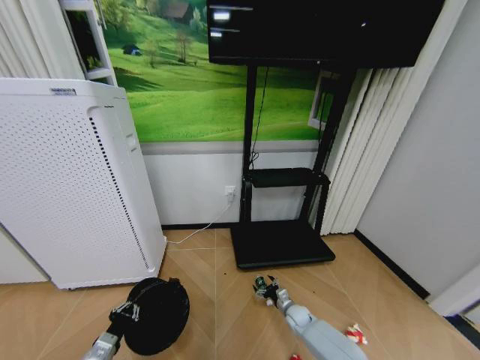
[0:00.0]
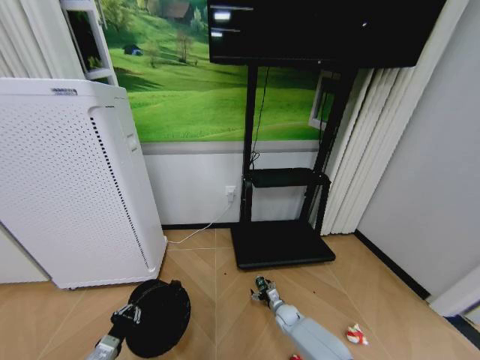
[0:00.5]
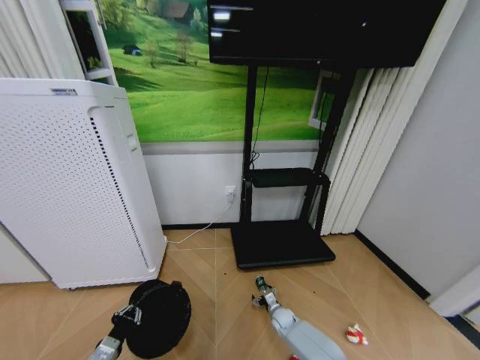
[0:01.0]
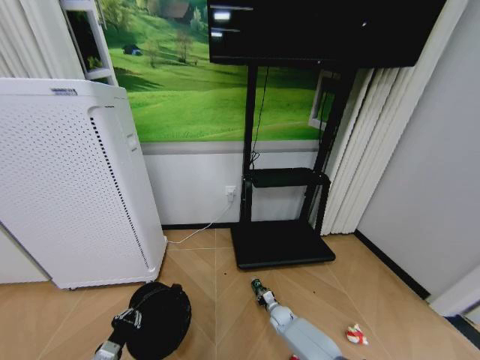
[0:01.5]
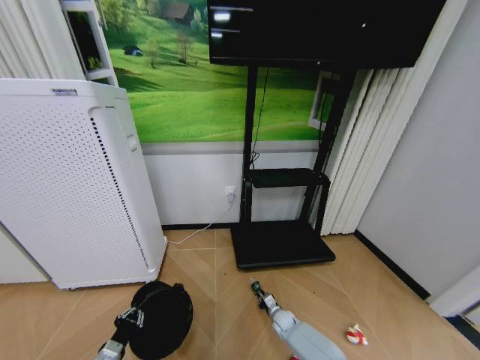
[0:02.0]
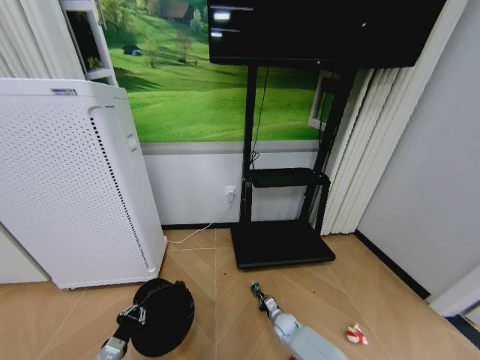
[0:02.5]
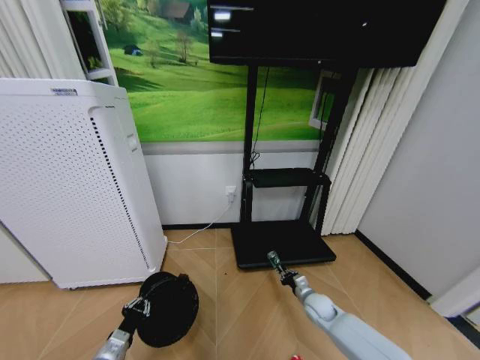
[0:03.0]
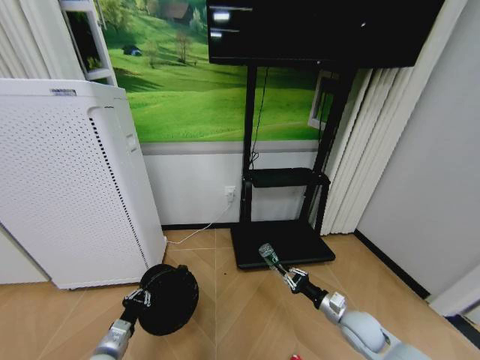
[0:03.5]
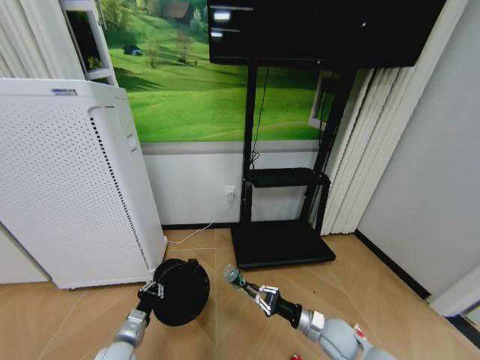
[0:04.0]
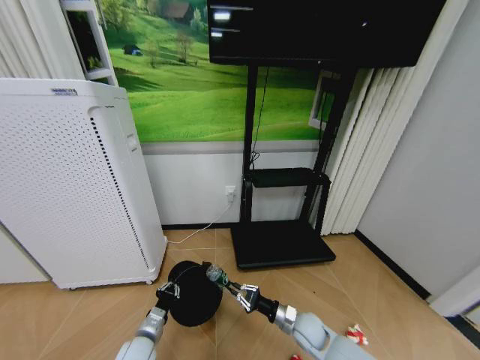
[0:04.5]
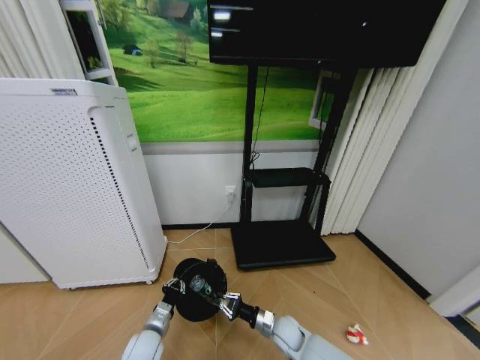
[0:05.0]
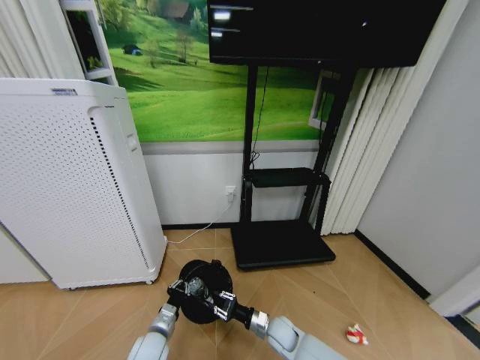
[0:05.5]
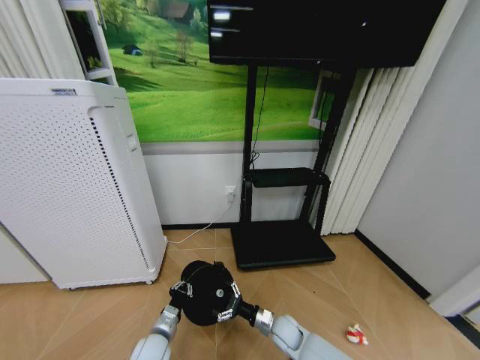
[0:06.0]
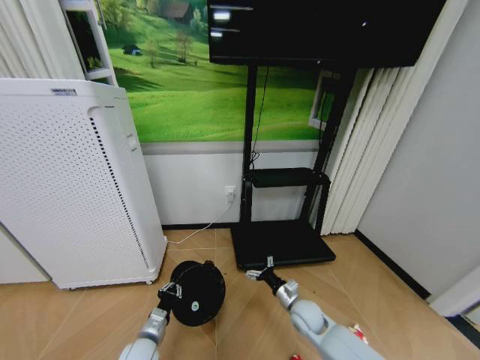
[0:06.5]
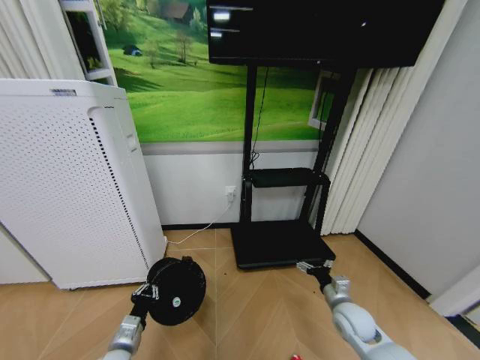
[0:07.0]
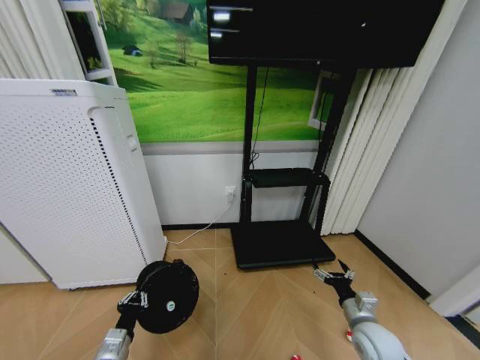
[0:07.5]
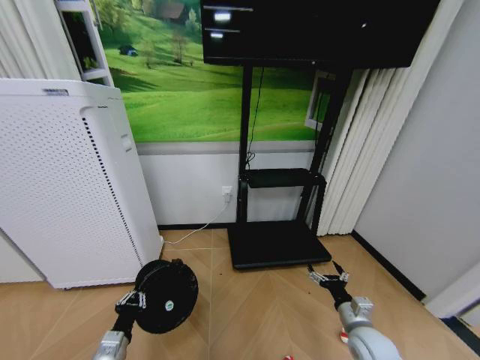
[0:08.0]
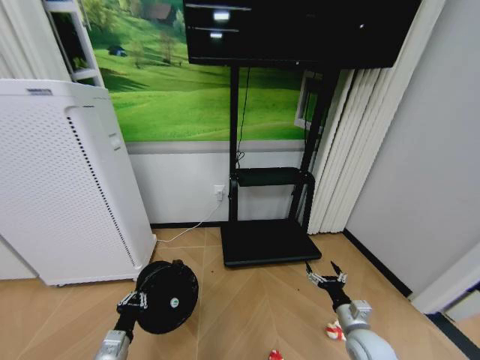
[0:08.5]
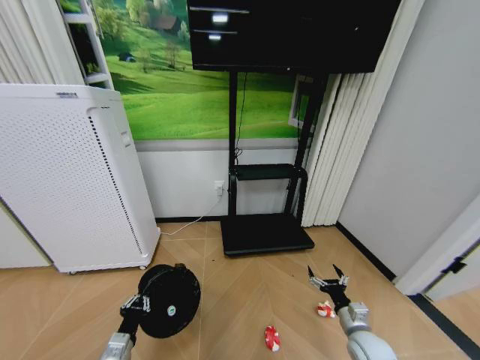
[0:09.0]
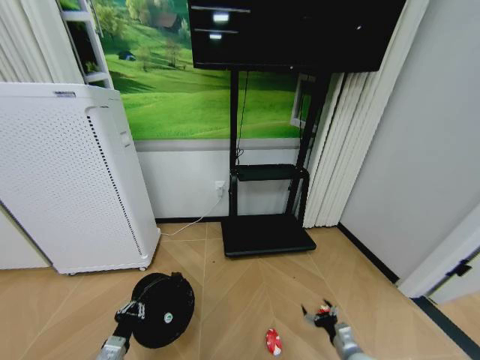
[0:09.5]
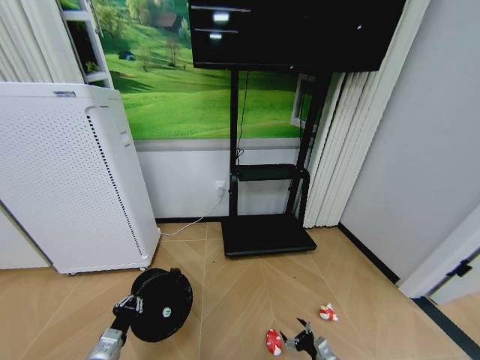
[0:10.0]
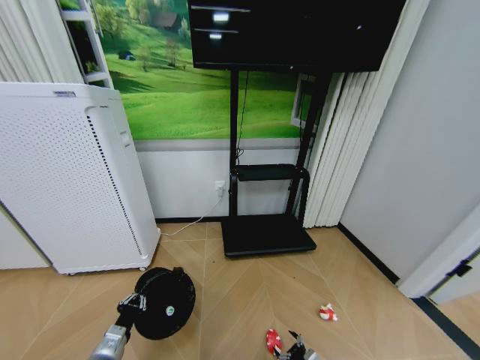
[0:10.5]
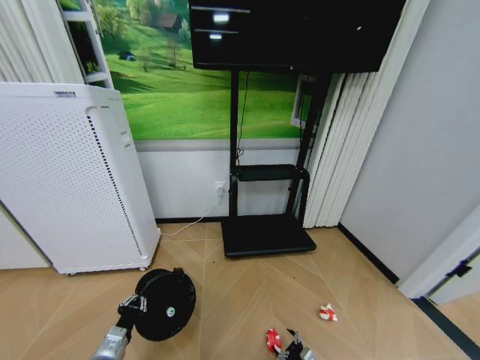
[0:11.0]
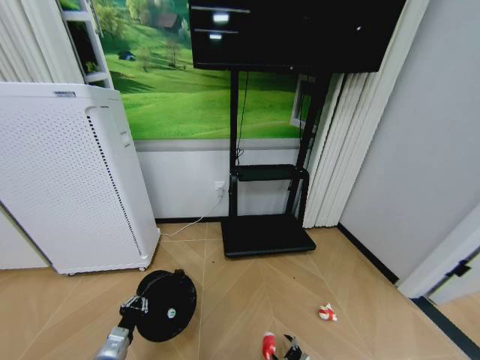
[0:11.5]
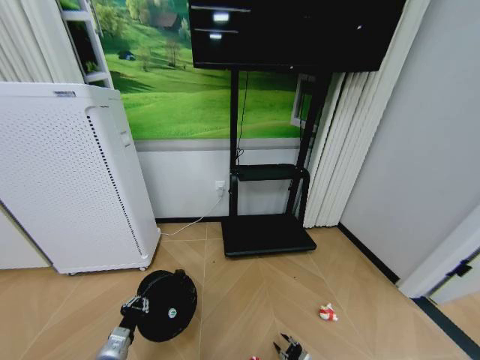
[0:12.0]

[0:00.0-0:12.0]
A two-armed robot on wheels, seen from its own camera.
Task of the whole recording: Pick up the trash bin and place the garbage on the floor into it.
0:00.0 to 0:02.0: The right gripper is displaced to the left by some 5 cm, and closes.
0:02.0 to 0:04.0: The left gripper travels forward by roughly 5 cm, while the right gripper travels upward, backward and to the right by some 25 cm.
0:04.0 to 0:06.0: The left gripper goes about 10 cm to the right. Meanwhile the right gripper goes some 15 cm to the left and downward, and opens up.
0:06.0 to 0:08.0: The right gripper is displaced to the right and upward by about 20 cm; the left gripper moves to the left, backward and upward, approximately 15 cm.
0:08.0 to 0:10.0: The right gripper travels downward by approximately 15 cm.
0:10.0 to 0:12.0: The right gripper heads downward, covering approximately 10 cm, and closes its fingers.

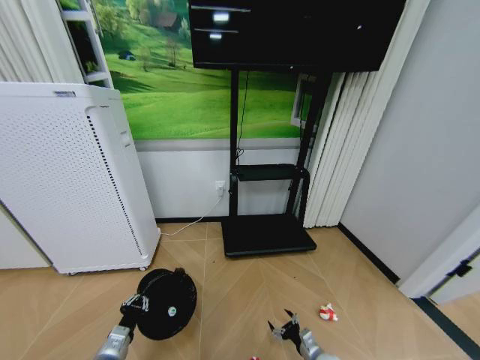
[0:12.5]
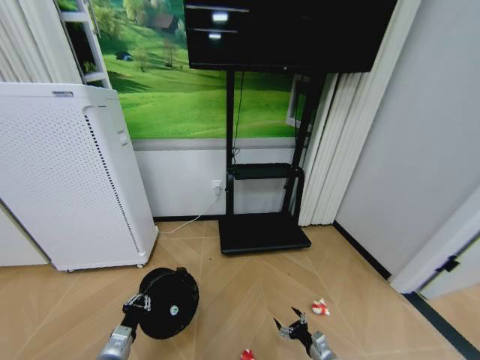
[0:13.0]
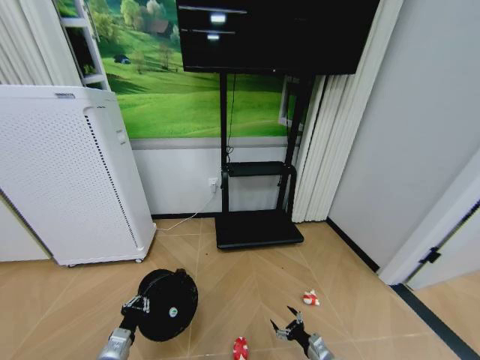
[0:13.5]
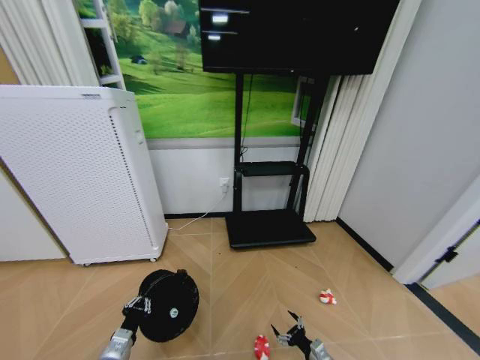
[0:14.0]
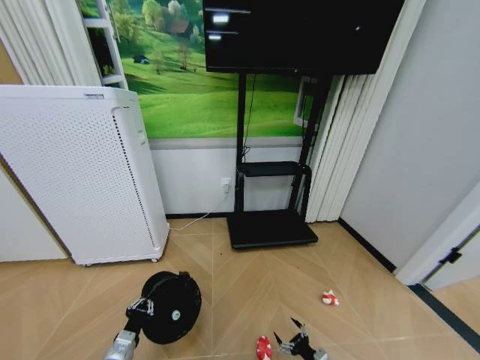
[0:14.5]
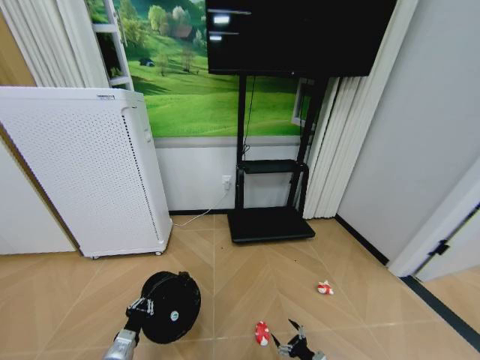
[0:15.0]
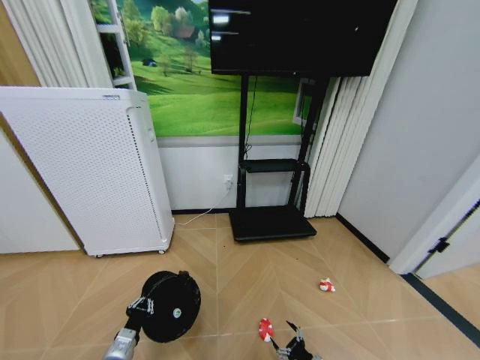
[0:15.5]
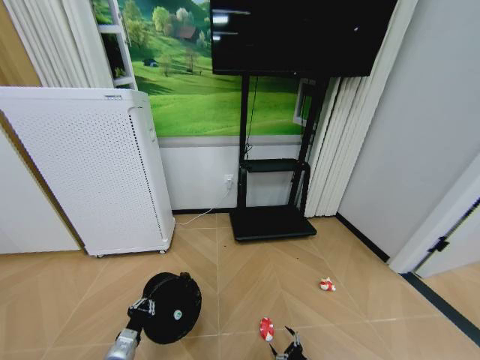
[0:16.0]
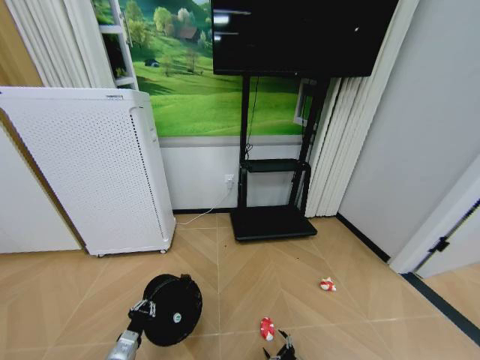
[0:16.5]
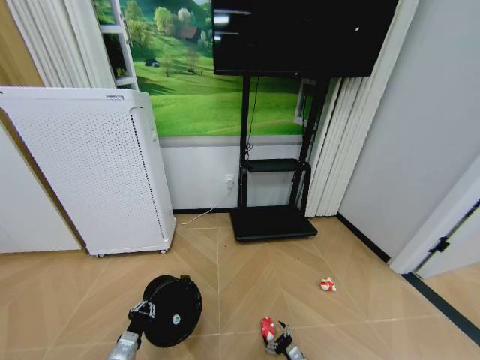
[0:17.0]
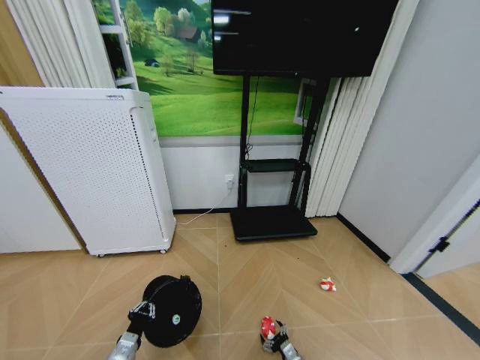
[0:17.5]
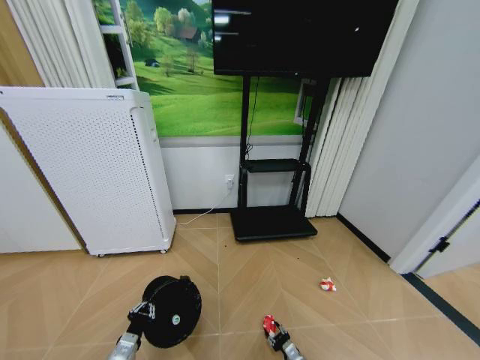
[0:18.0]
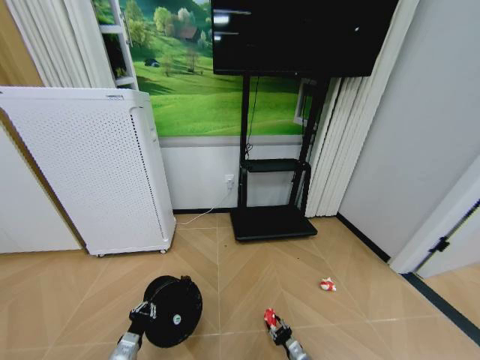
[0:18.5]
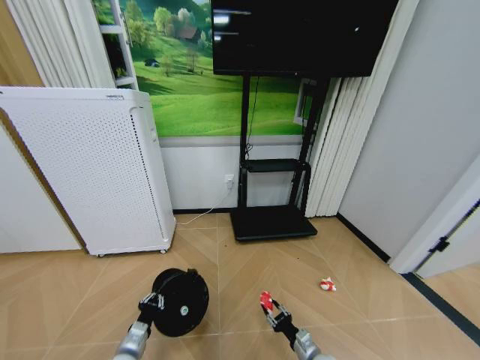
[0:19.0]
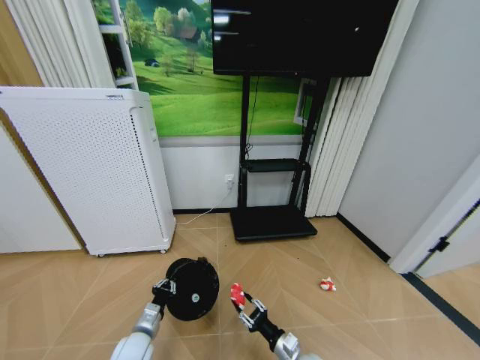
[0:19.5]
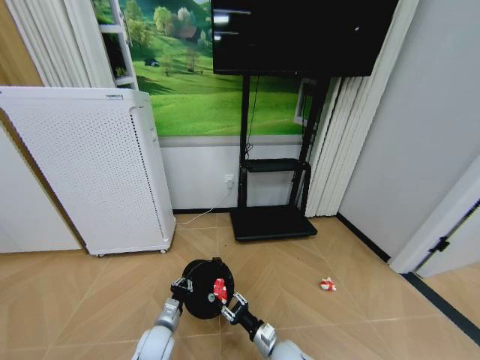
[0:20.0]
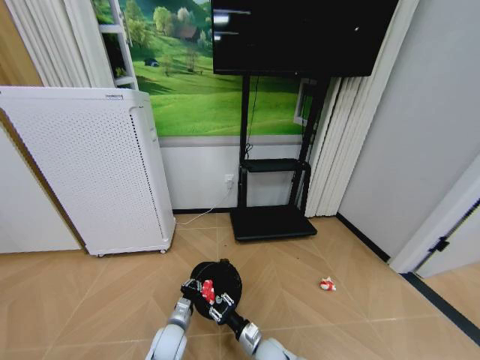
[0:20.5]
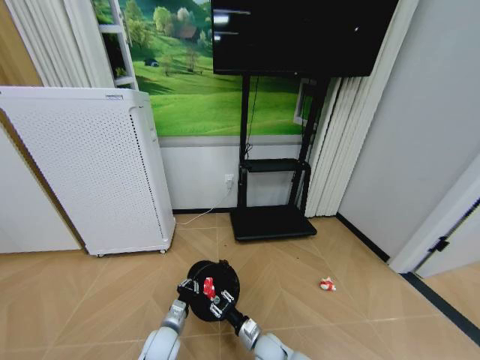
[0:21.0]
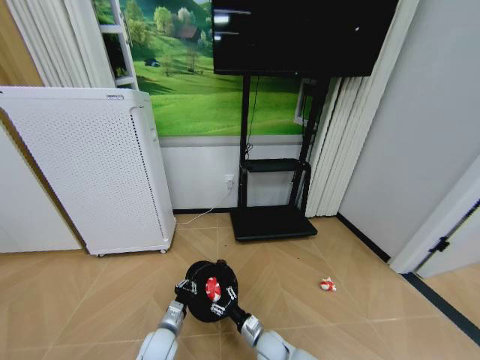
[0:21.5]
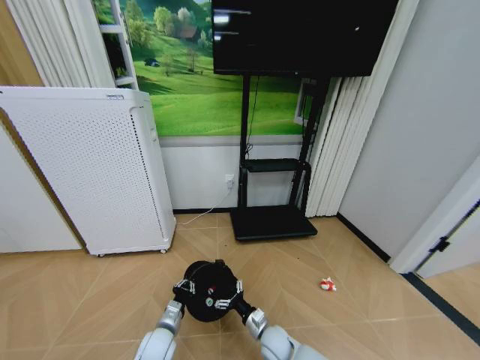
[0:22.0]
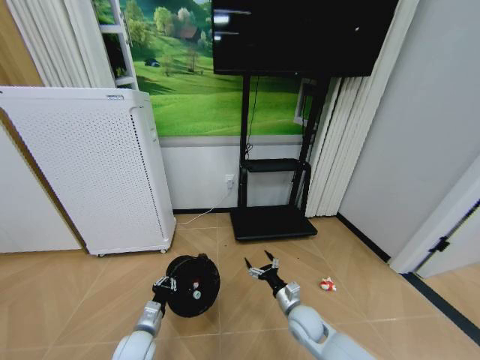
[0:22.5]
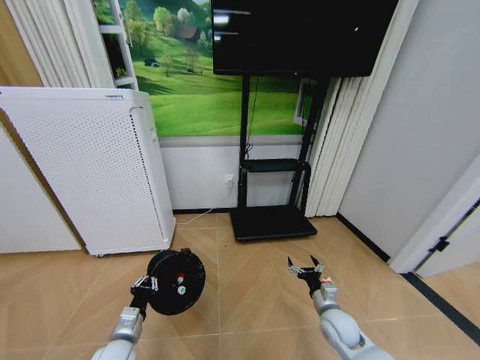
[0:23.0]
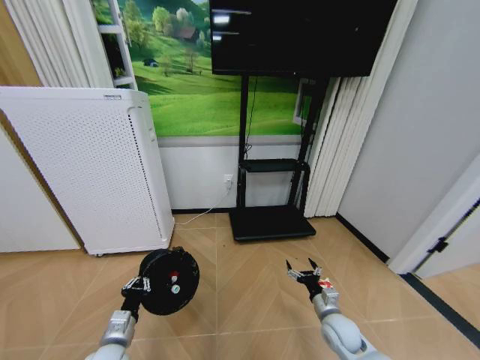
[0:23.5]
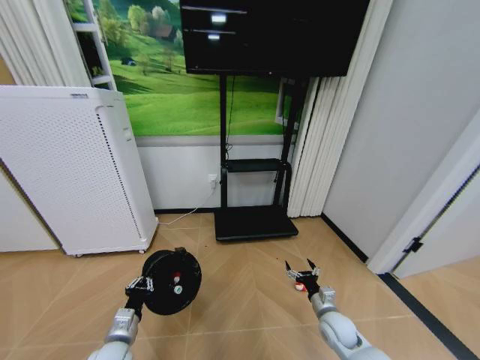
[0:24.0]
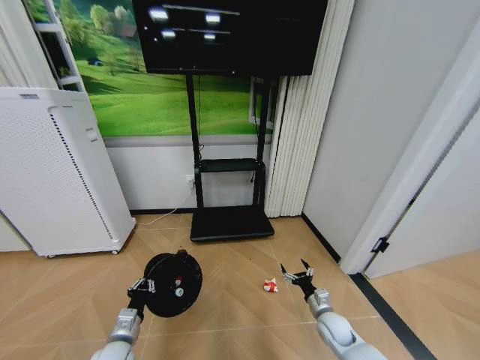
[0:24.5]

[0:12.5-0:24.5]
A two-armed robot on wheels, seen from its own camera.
Task of the whole recording: Pick up the trash bin and place the garbage on the floor into it.
0:12.5 to 0:14.5: The right gripper shifts about 5 cm backward.
0:14.5 to 0:16.5: The right gripper shifts roughly 5 cm downward.
0:16.5 to 0:18.5: The right gripper closes up.
0:18.5 to 0:20.5: The left gripper shifts some 15 cm to the right and forward. The right gripper goes roughly 20 cm to the left and upward.
0:20.5 to 0:22.5: The right gripper travels to the right, upward and forward by roughly 15 cm, and opens. The left gripper shifts approximately 5 cm to the left.
0:22.5 to 0:24.5: The right gripper heads to the right, covering approximately 15 cm; the left gripper changes place by some 5 cm.

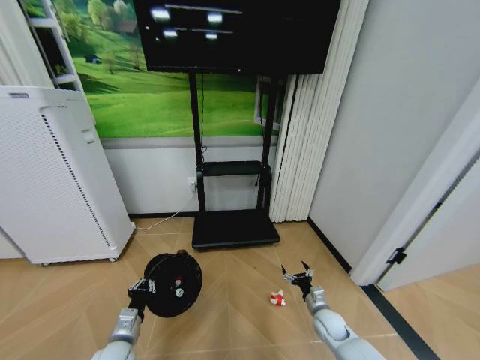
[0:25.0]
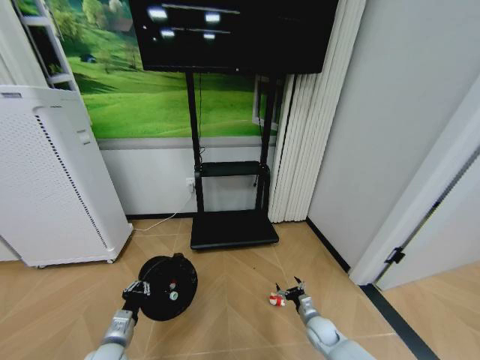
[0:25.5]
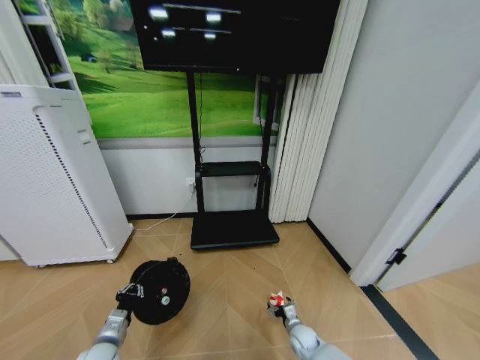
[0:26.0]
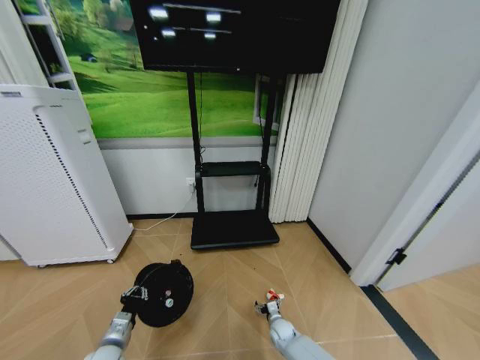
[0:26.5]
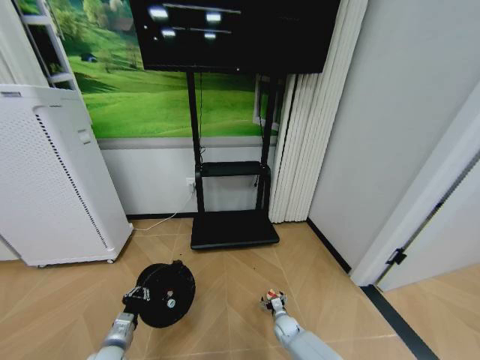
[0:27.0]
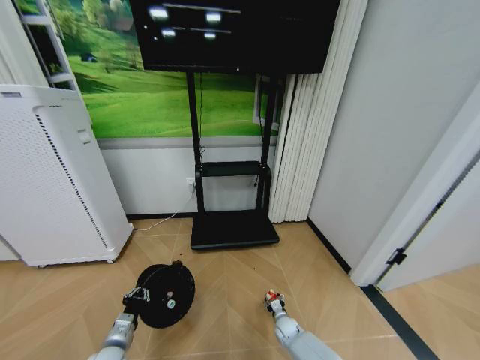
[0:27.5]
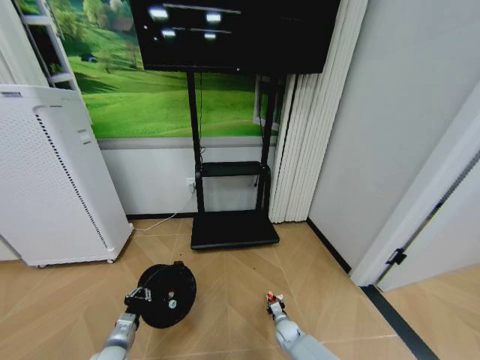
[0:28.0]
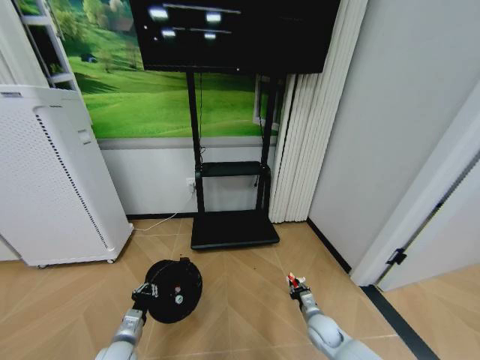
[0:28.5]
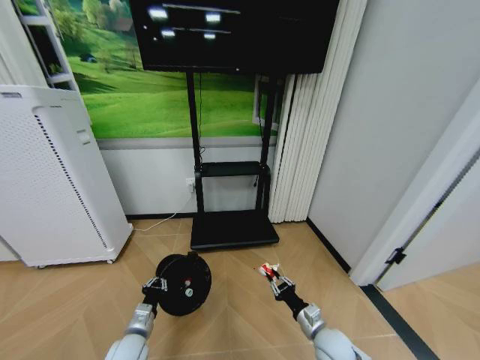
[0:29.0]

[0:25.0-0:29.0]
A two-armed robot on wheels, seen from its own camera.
Task of the whole recording: Pick up the trash bin and place the garbage on the floor into it.
0:25.0 to 0:27.0: The right gripper moves downward and to the left, some 15 cm.
0:27.0 to 0:29.0: The left gripper shifts by roughly 5 cm. The right gripper is displaced upward and backward by some 20 cm, and closes up.
